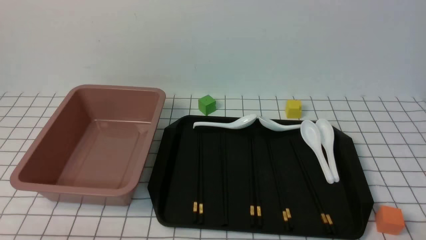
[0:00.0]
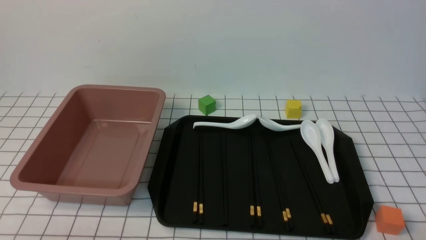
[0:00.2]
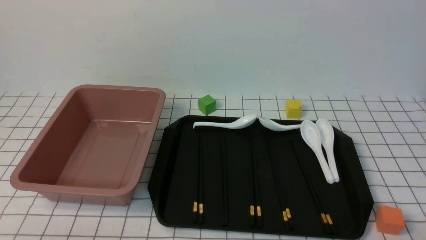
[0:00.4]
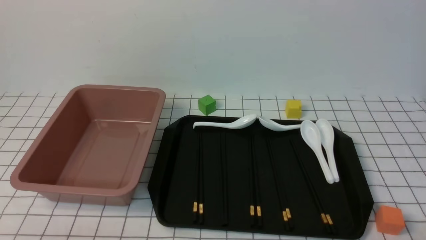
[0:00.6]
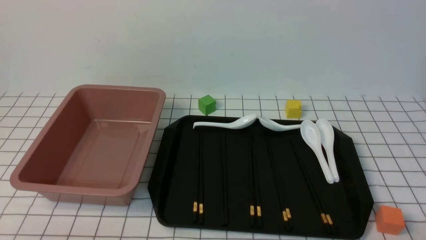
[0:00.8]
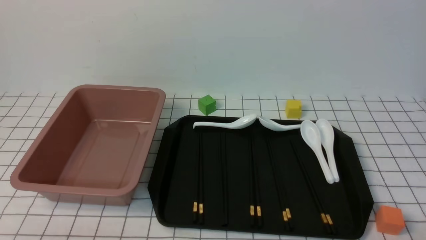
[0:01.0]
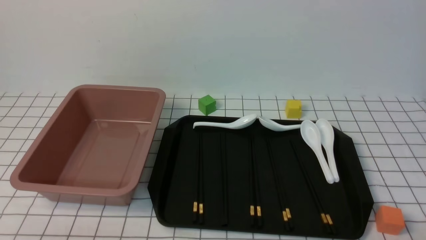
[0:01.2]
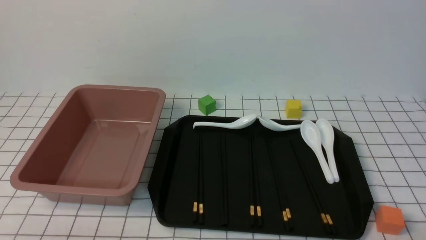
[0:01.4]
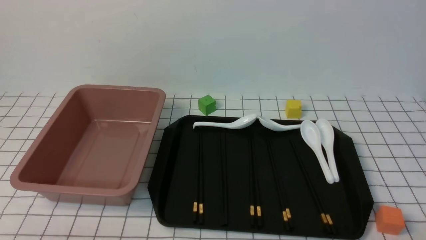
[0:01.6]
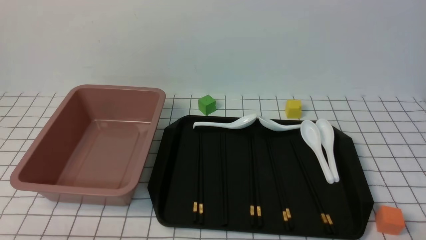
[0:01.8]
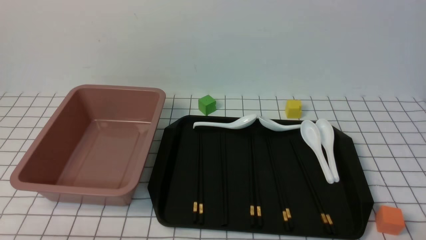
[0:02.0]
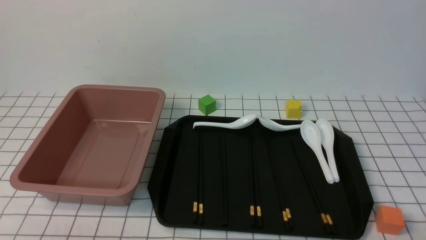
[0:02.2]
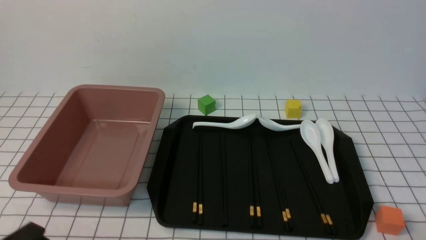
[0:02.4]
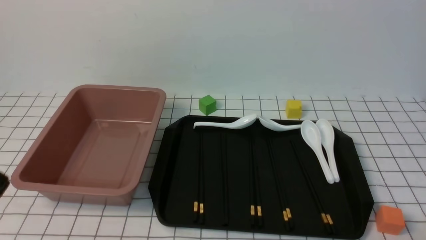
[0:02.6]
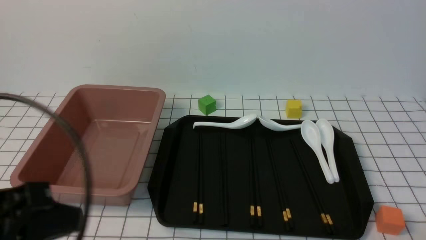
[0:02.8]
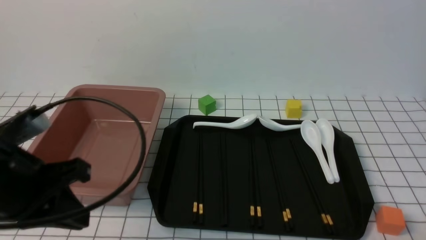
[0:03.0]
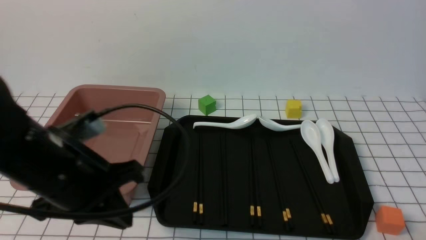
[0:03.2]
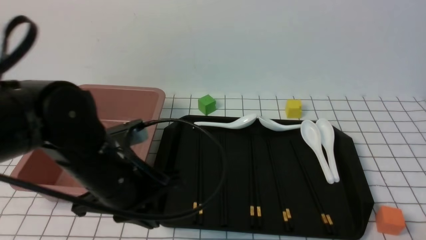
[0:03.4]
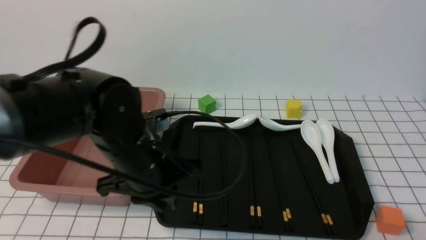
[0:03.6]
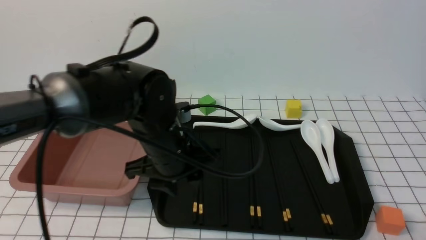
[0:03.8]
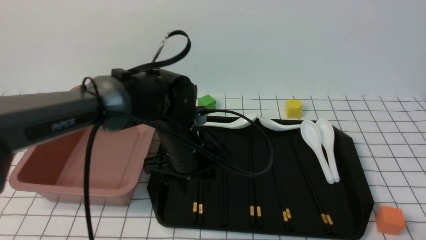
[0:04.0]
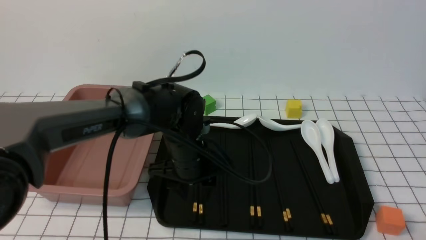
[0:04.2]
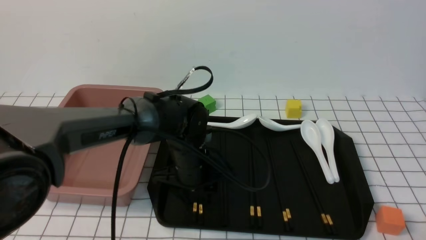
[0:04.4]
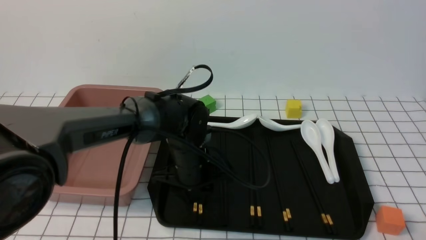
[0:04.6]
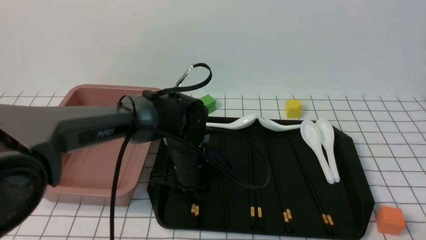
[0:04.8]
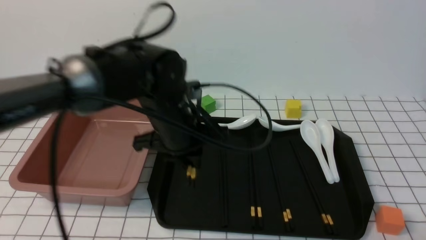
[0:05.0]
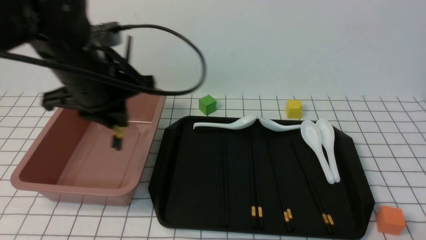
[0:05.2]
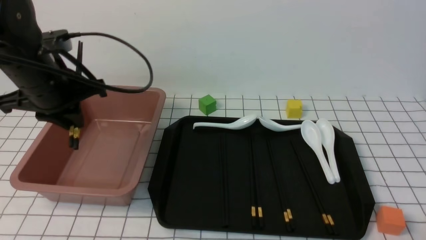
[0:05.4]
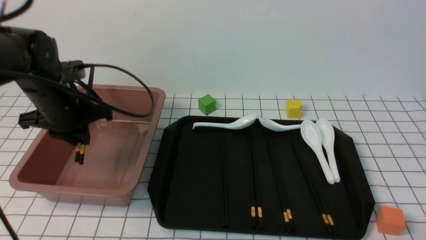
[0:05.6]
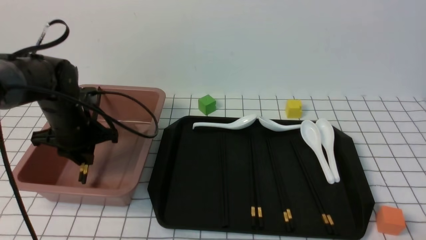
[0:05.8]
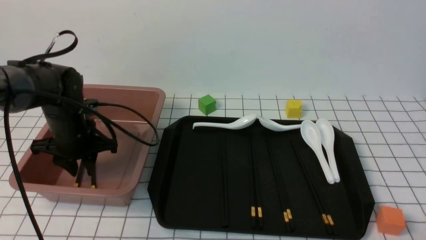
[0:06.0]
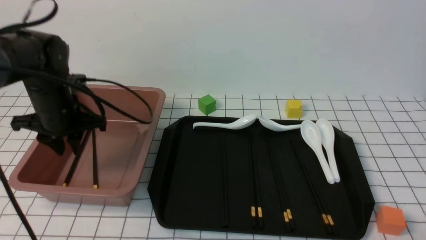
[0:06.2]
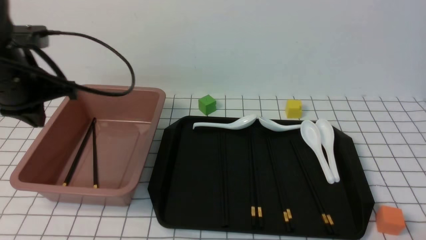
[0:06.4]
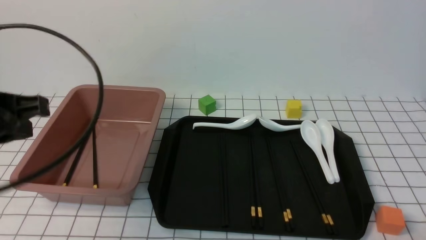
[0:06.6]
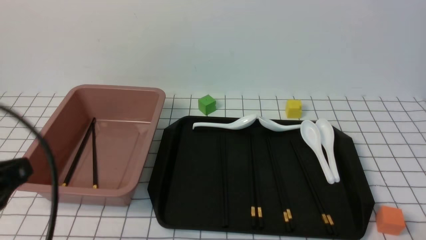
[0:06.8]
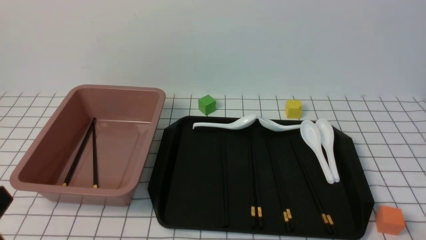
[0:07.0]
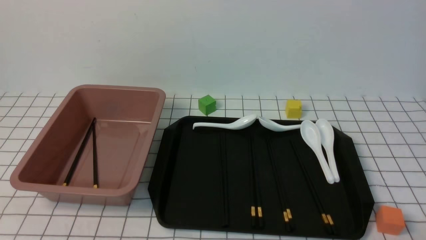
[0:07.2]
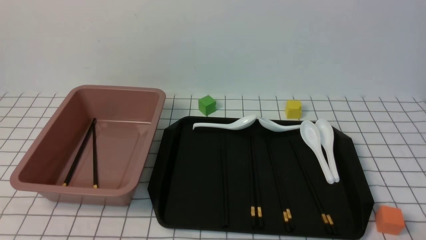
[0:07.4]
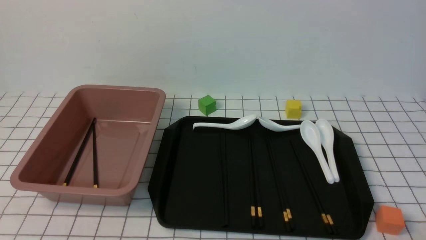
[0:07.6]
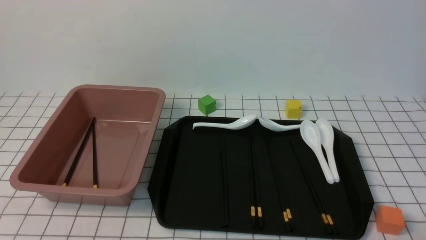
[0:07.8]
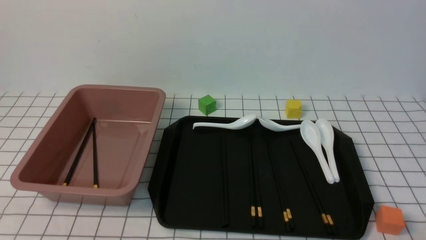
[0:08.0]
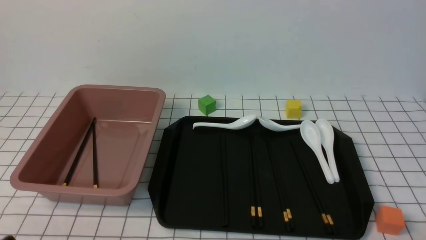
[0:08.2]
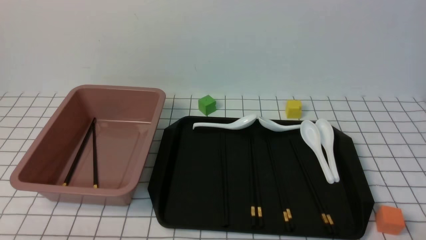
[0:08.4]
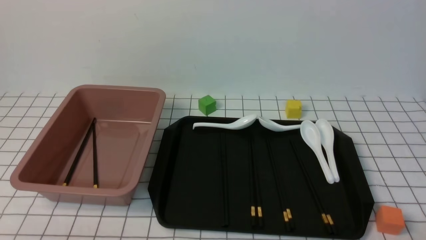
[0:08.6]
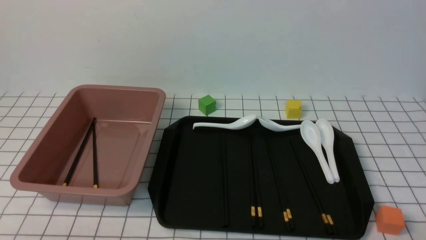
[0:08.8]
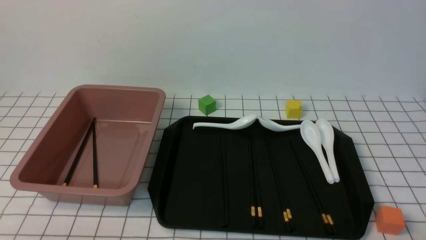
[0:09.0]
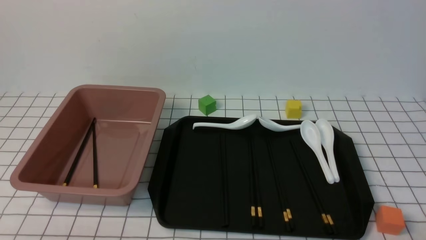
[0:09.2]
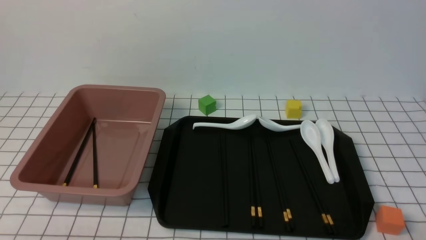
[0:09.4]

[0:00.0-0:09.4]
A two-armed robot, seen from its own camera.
Step, 0:00.0 to 0:04.8: use the left arm to grab a pair of chopsticks.
Step, 0:05.2 to 0:06.4: use the left arm to put the chopsticks into the lunch box.
0:00.0 to 0:01.6: The two grippers keep their place.
0:01.6 to 0:03.2: The left gripper moves forward, upward and to the right, some 20 cm, and closes its fingers.
0:03.2 to 0:04.8: The left gripper shifts roughly 20 cm forward, to the right and downward, and opens up.
0:04.8 to 0:06.2: The left gripper moves to the left, some 20 cm.
0:06.2 to 0:07.8: The left gripper shifts about 35 cm backward, and closes its fingers.
